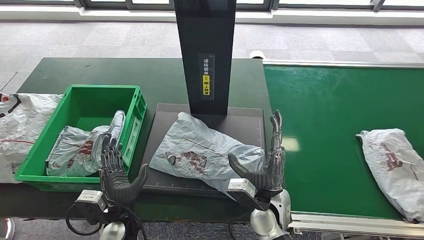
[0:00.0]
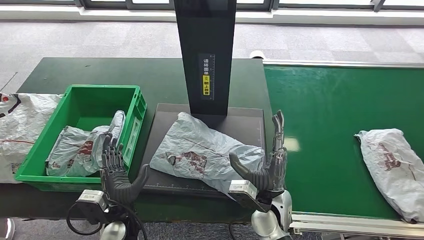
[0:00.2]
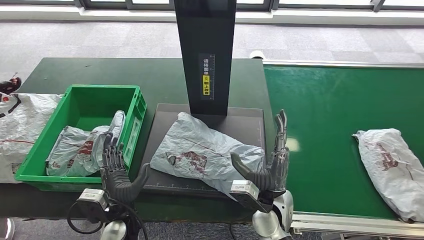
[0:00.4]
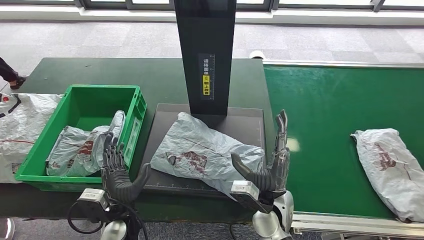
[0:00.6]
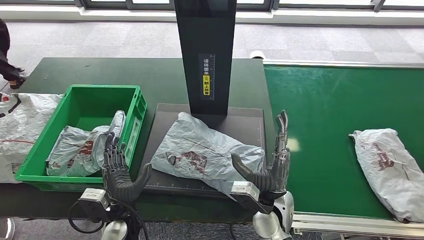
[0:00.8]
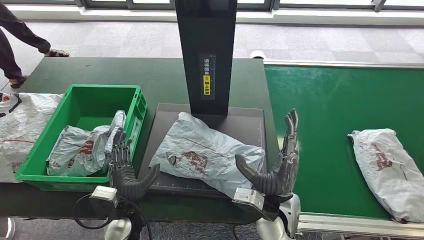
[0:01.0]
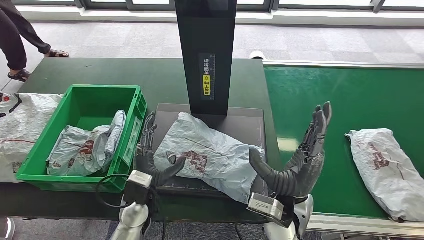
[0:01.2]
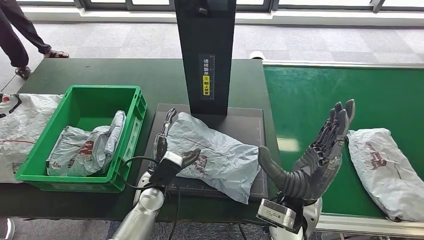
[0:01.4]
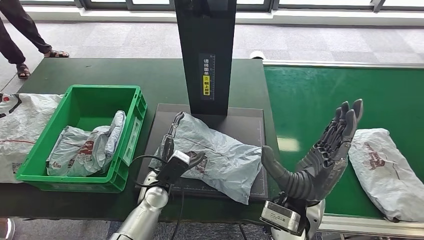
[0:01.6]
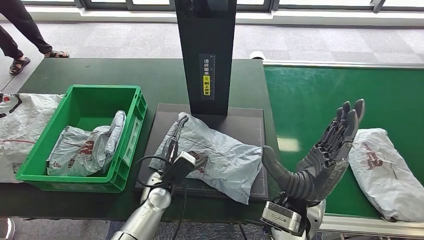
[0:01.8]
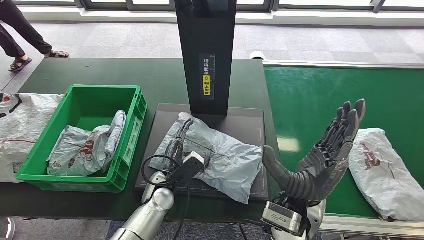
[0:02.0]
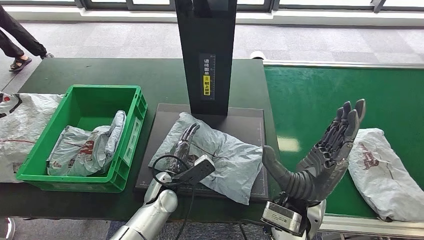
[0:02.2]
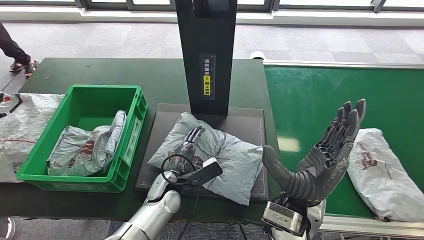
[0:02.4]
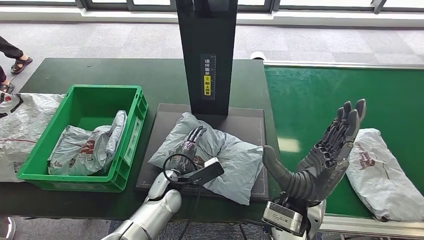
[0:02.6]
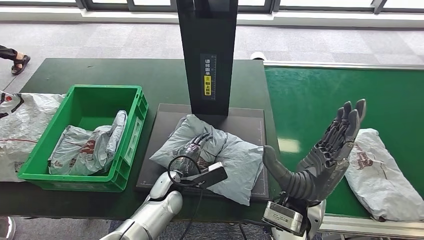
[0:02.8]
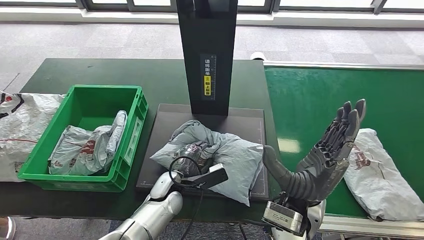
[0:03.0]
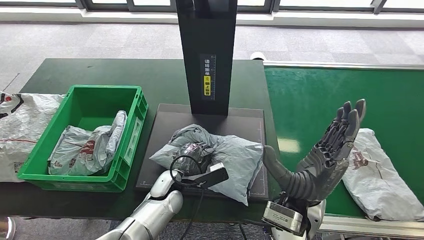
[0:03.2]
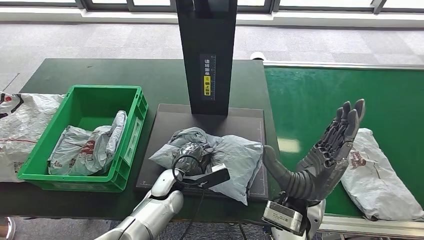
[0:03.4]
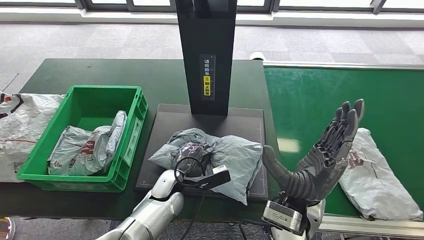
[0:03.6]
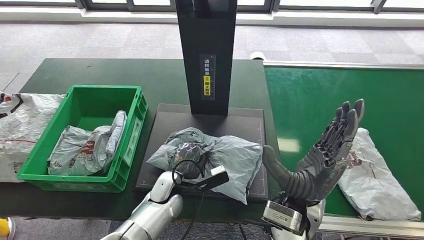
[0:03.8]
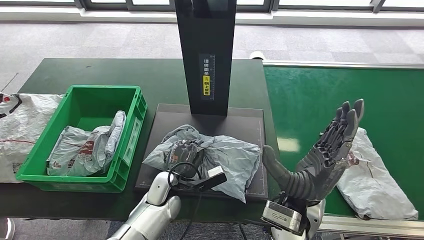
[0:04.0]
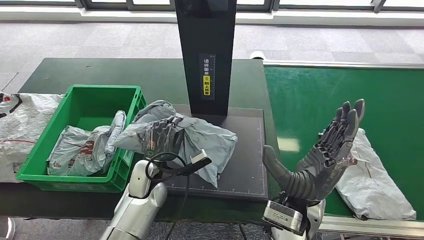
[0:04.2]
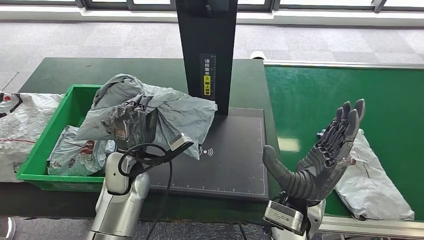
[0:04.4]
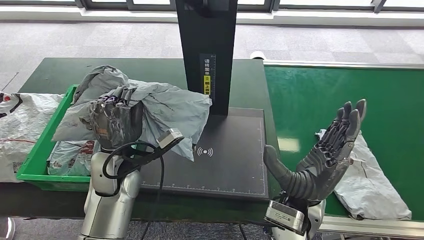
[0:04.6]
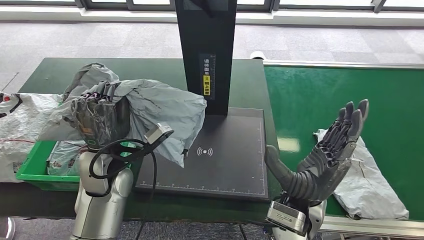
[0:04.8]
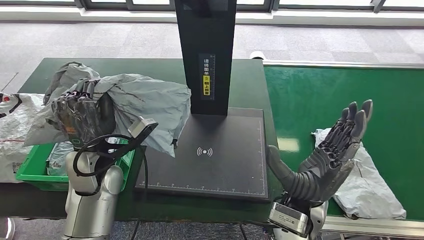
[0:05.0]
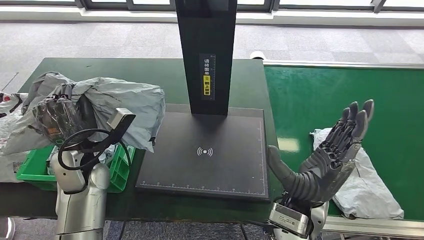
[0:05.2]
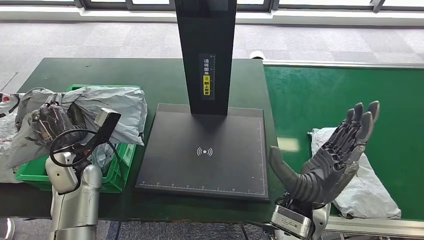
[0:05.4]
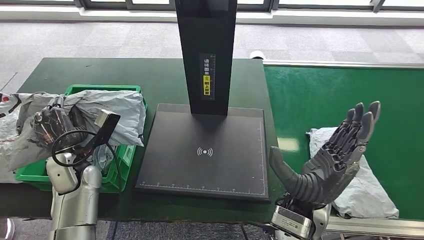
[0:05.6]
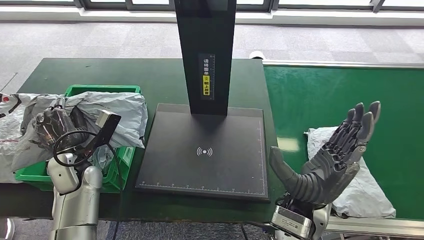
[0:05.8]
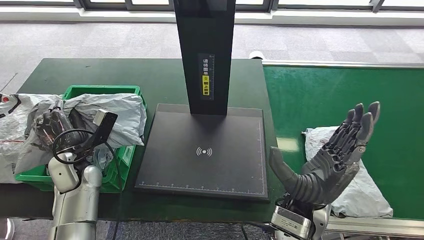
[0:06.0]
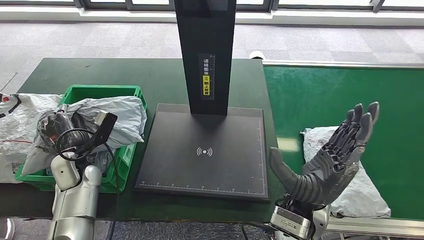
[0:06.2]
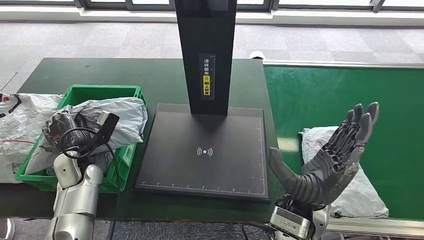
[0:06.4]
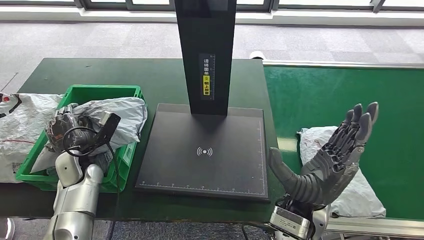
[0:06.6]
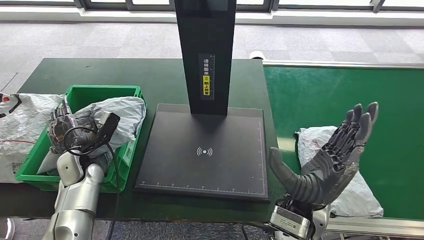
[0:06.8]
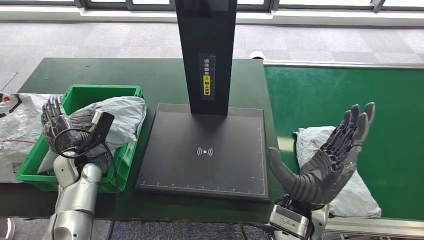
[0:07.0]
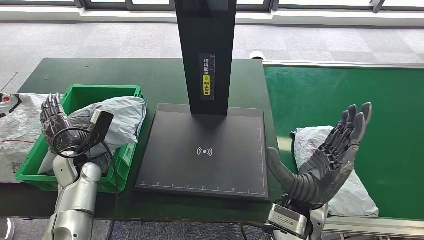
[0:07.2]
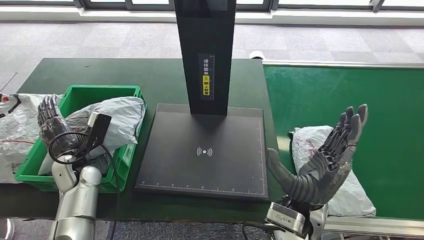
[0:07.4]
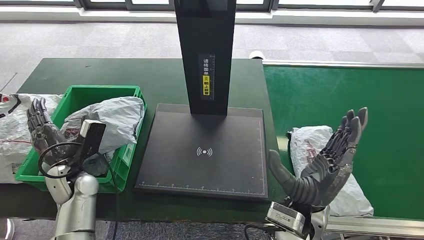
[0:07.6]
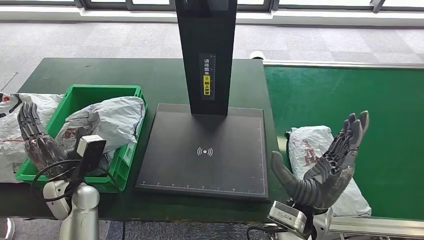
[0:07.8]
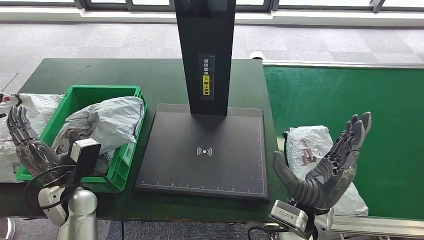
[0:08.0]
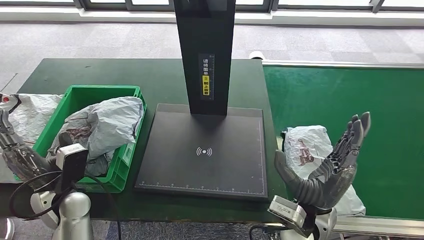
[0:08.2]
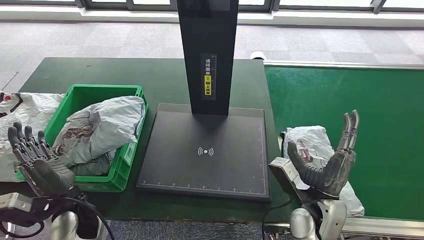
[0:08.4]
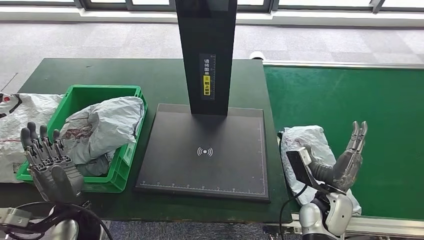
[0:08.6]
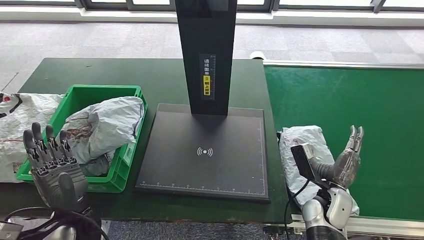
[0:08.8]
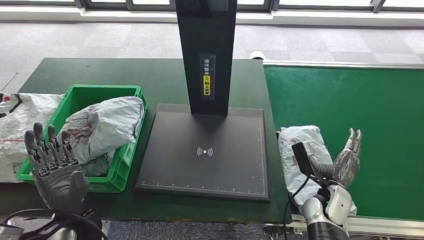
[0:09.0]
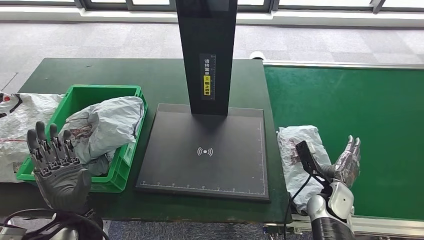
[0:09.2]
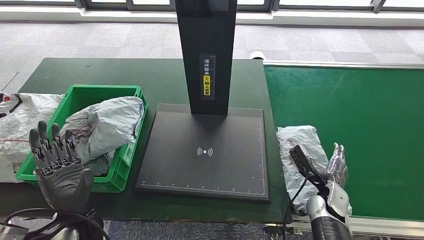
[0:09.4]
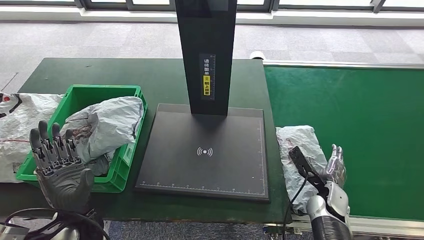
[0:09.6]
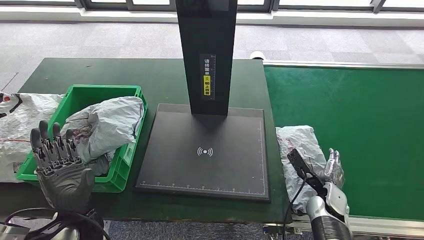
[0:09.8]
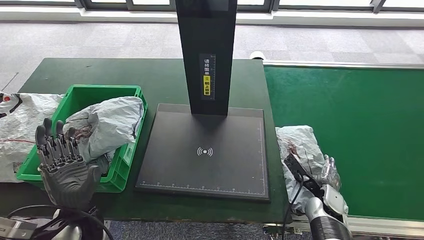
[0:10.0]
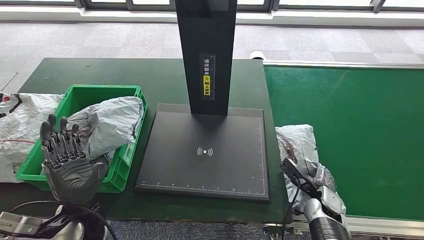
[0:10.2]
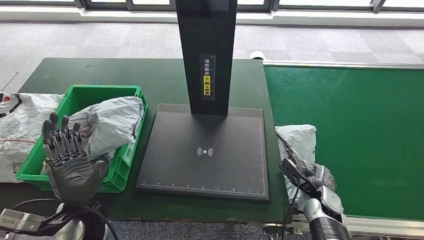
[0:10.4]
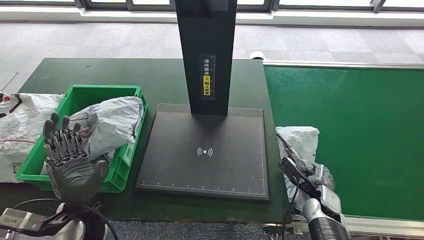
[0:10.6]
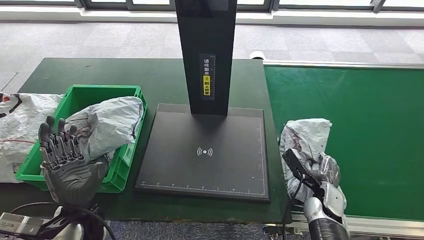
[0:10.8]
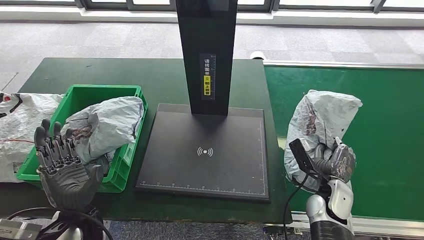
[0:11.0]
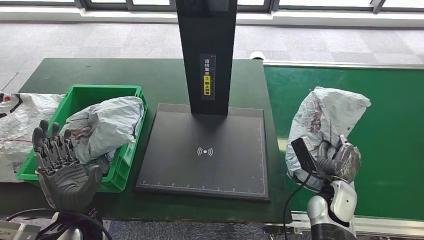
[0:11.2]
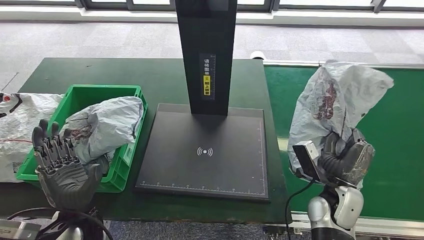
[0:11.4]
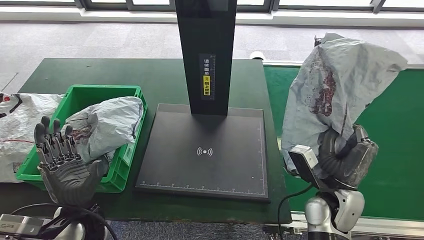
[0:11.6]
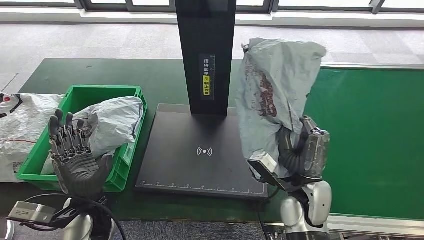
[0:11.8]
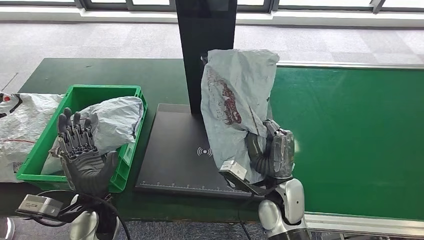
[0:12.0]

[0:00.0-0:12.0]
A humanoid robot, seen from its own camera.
Step, 0:02.0 to 0:04.4: Pick up the parcel from the inbound machine.
Step, 0:04.8 to 0:07.8: Place the parcel into the delivery box.
Step, 0:08.0 to 0:11.8: Pick up the parcel from the conveyor belt.
0:00.0 to 0:01.6: The right hand shifts roughly 10 cm upward; the left hand travels forward and to the right by some 10 cm.
0:06.0 to 0:07.6: The hands move only a little.
0:07.6 to 0:09.0: The right hand heads to the right and downward, covering roughly 20 cm. Meanwhile the left hand shifts approximately 10 cm backward and to the right.
0:10.4 to 0:12.0: The right hand is displaced to the left and upward by roughly 20 cm.

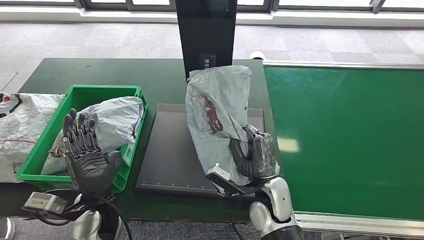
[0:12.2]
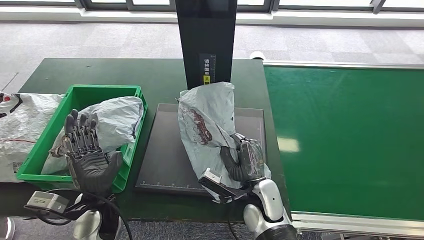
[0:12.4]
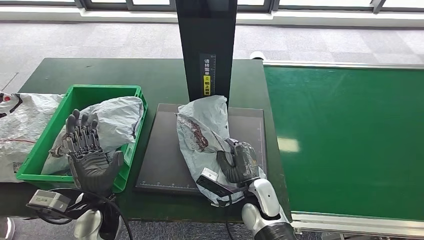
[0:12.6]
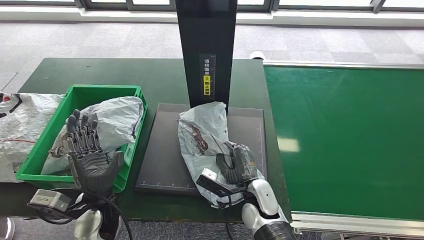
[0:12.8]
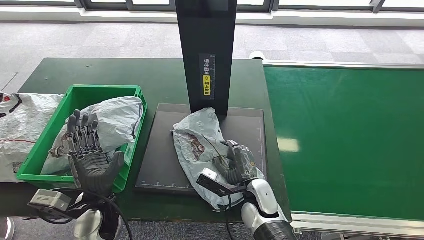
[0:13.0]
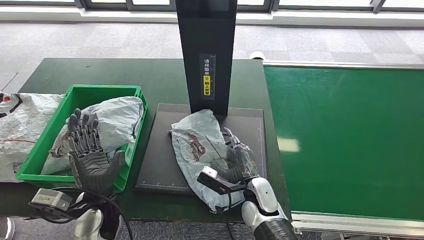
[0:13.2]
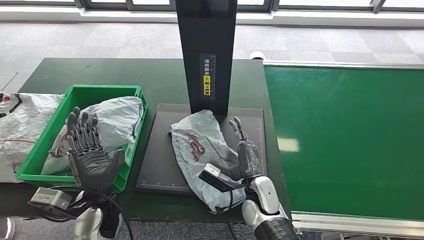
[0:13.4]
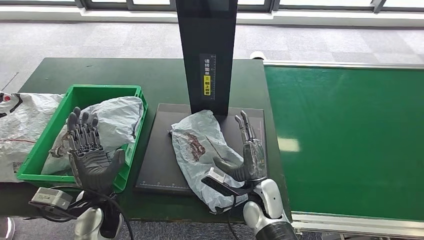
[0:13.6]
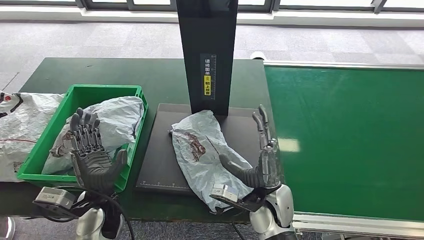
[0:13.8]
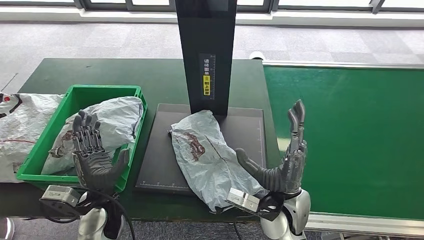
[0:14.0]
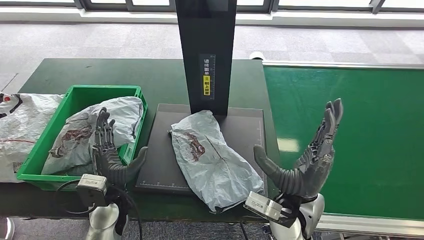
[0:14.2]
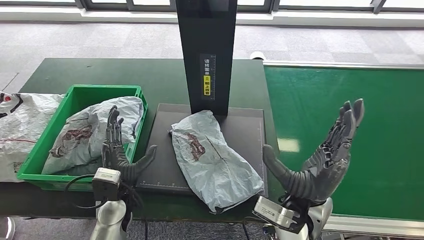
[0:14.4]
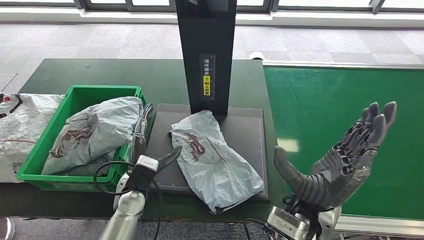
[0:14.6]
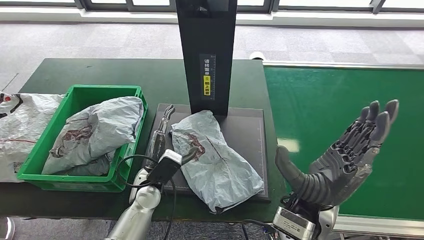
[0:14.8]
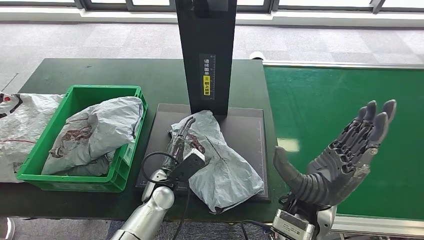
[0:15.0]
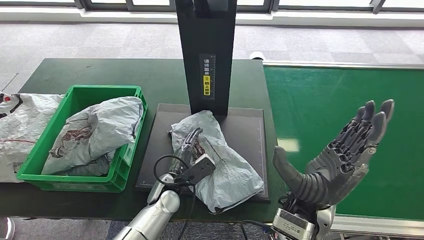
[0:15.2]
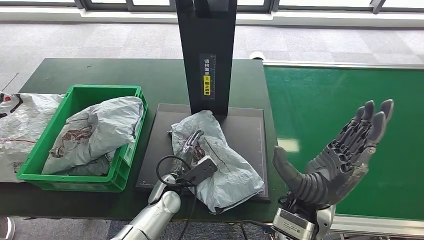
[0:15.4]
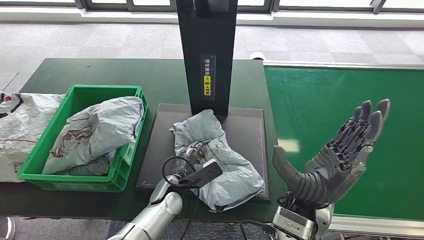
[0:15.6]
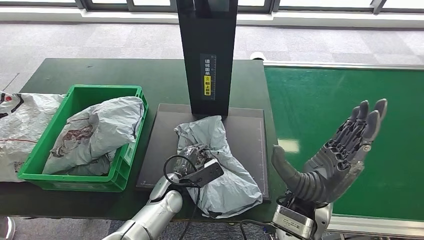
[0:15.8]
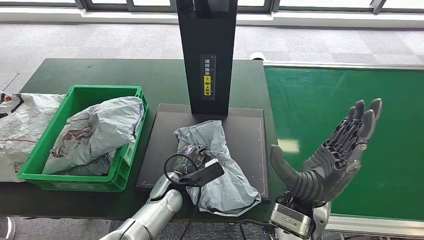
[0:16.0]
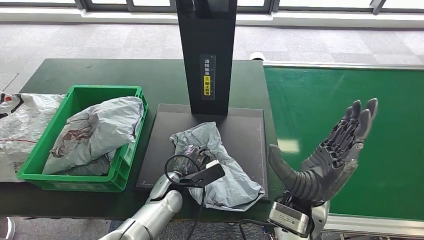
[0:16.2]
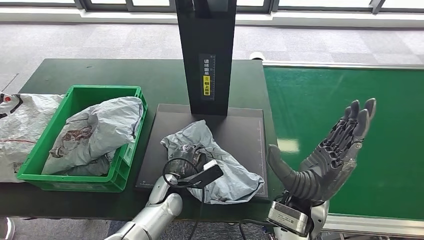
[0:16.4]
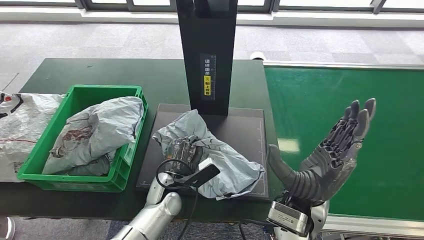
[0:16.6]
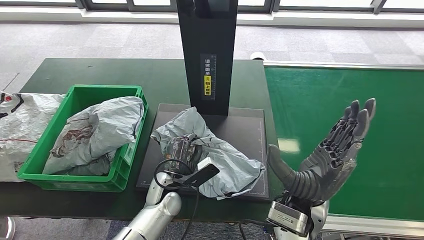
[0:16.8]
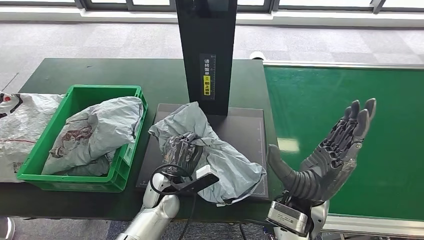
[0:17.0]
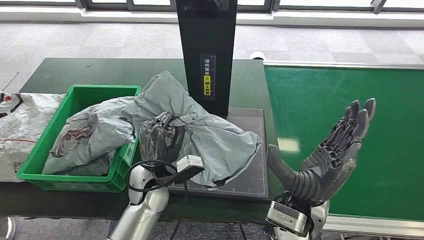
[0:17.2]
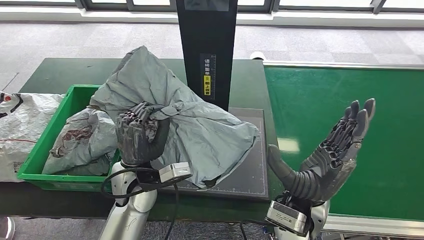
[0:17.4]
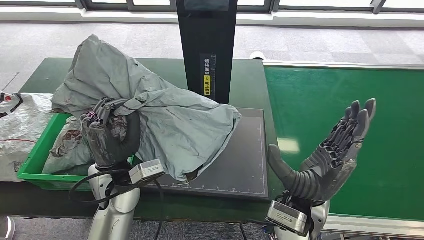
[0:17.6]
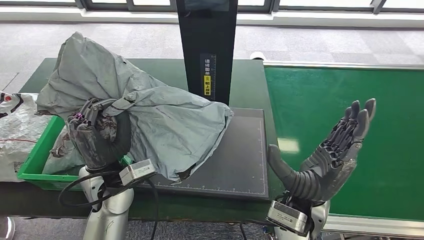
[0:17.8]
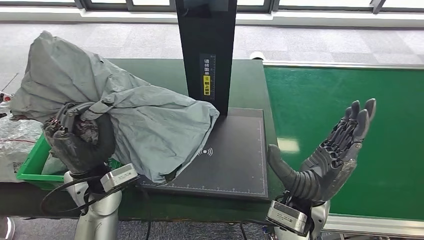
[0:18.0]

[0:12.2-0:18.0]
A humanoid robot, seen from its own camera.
Step, 0:12.2 to 0:14.4: Place the parcel onto the inbound machine.
Step, 0:14.6 to 0:17.8: Pick up the parcel from the inbound machine.
0:13.6 to 0:15.0: The left hand heads to the right and forward, covering roughly 15 cm, while the right hand goes about 15 cm upward.
